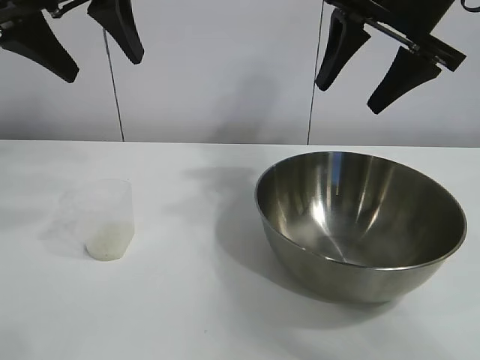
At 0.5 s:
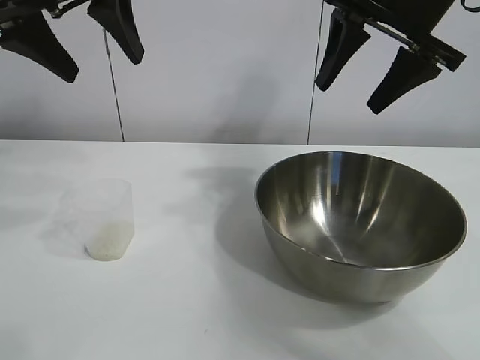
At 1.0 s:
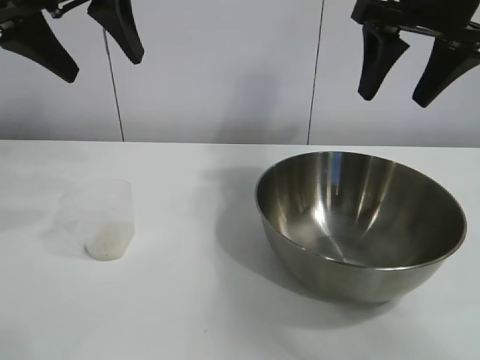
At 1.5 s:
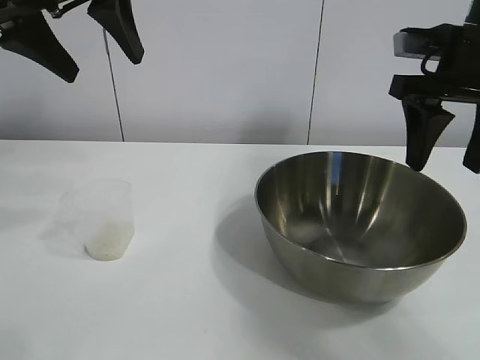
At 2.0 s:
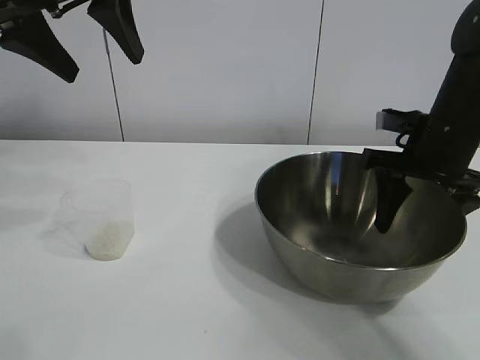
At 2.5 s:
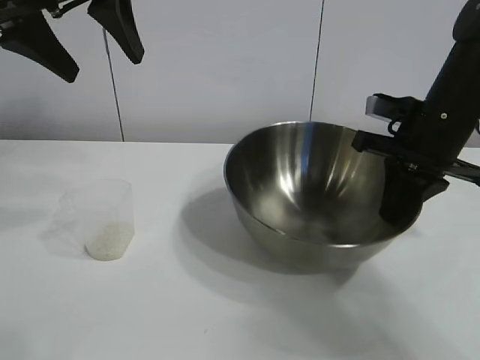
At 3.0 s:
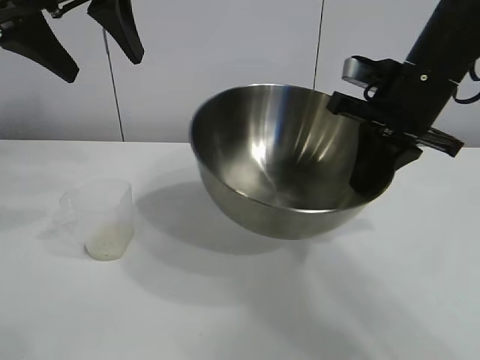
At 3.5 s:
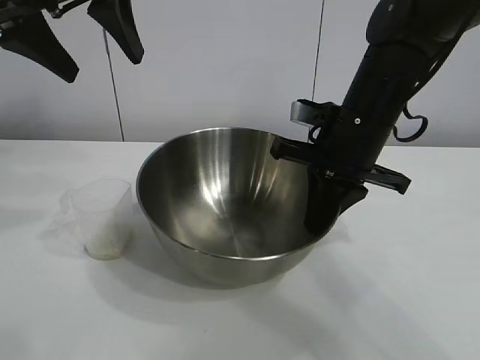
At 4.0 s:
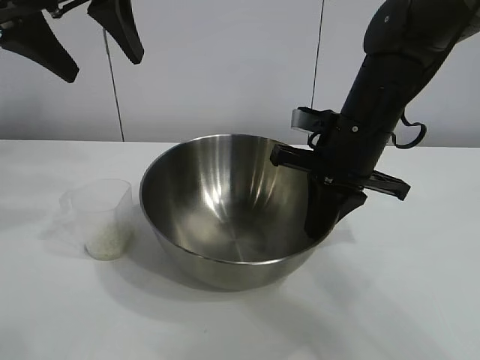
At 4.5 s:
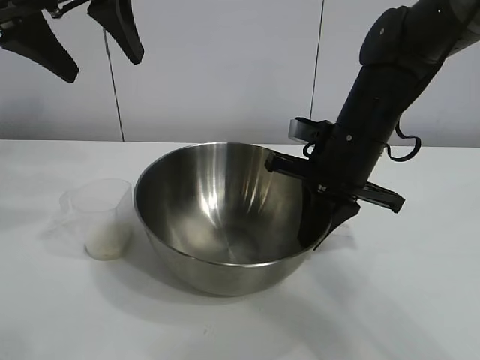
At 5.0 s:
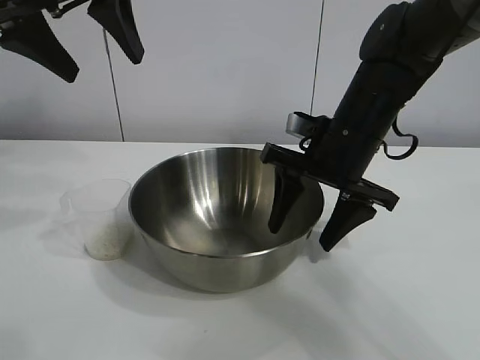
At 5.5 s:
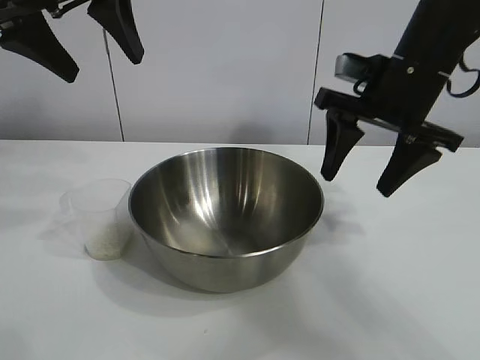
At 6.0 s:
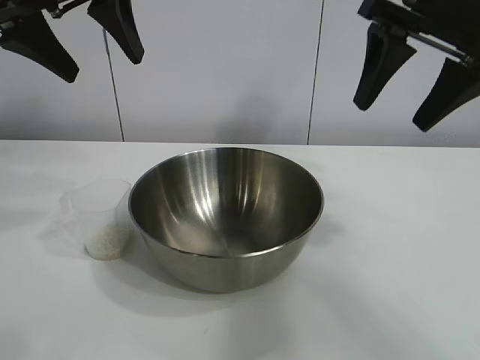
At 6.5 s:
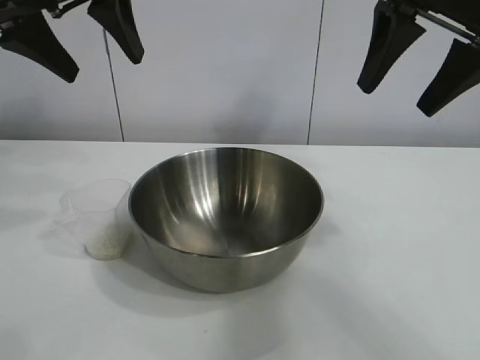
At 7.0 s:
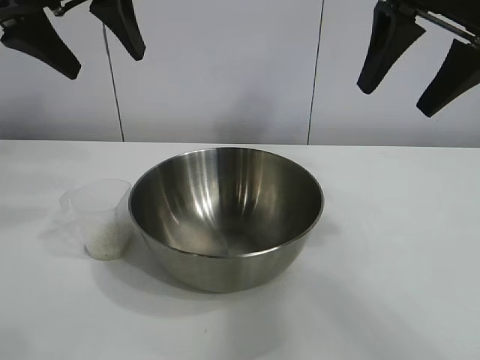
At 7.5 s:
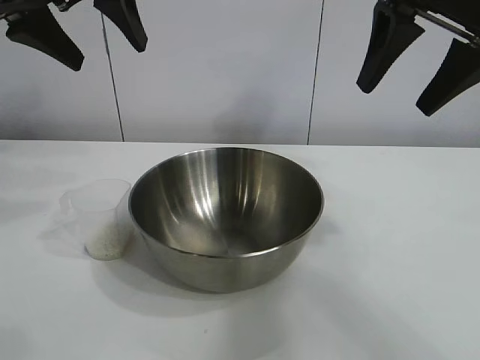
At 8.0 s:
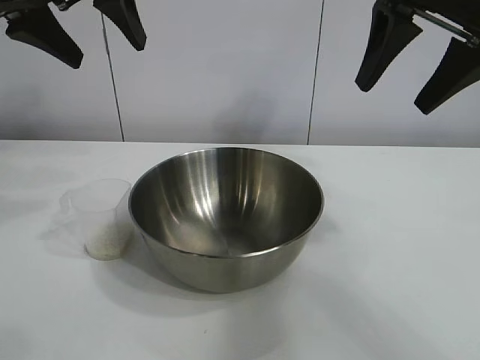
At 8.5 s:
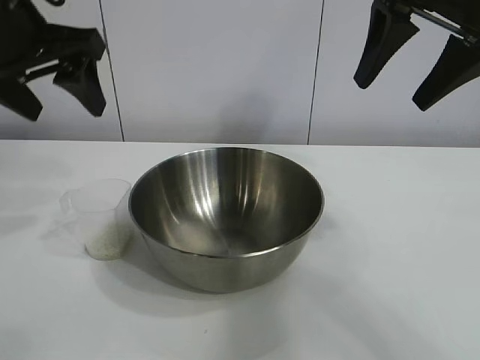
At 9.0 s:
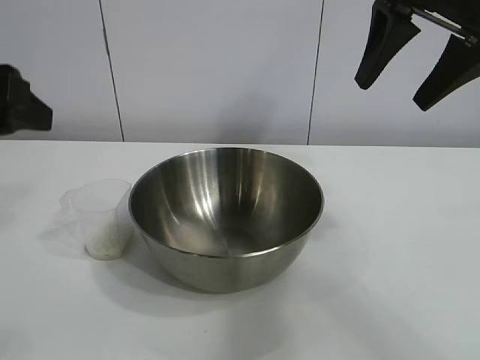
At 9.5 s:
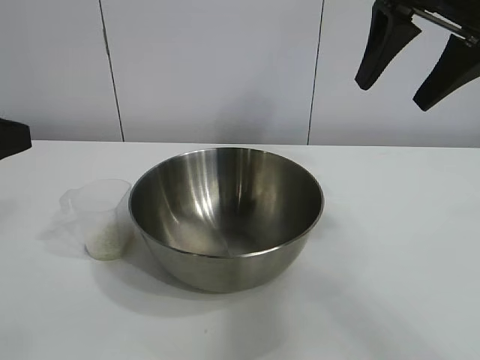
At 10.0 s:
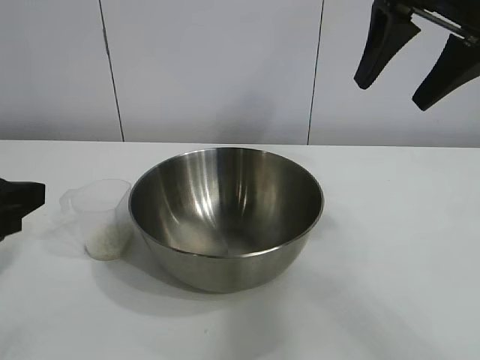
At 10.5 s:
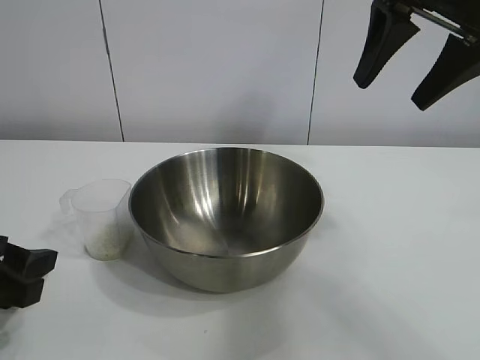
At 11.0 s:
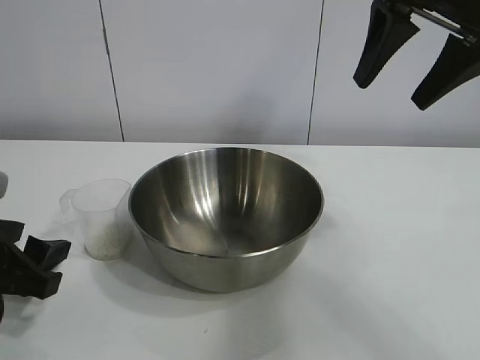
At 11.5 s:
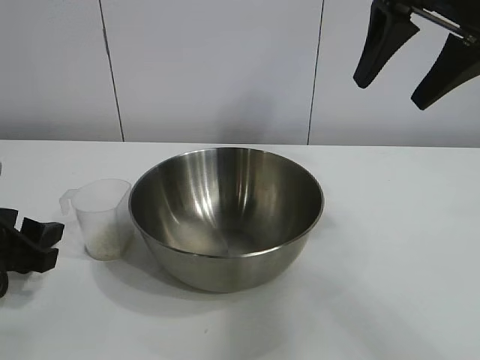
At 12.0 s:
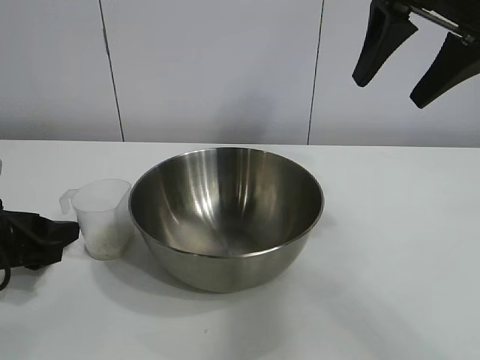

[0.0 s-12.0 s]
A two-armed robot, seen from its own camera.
Task of the whole recording: the right gripper grasp the rice container and place it in the center of the table, the left gripper grasp the rice scoop and pour the rice into the rice container.
Step, 1.0 to 4.5 s: Move the bowl in the center of view with right gripper.

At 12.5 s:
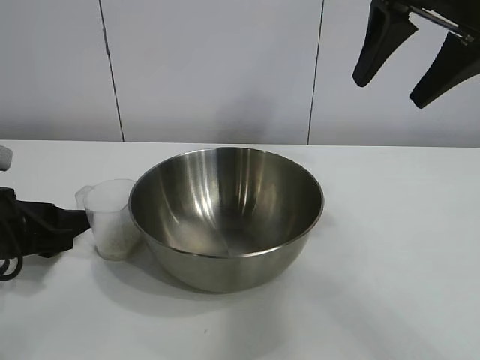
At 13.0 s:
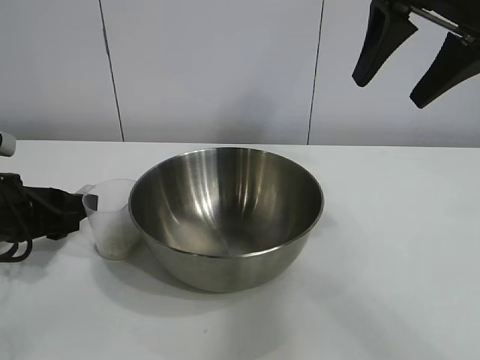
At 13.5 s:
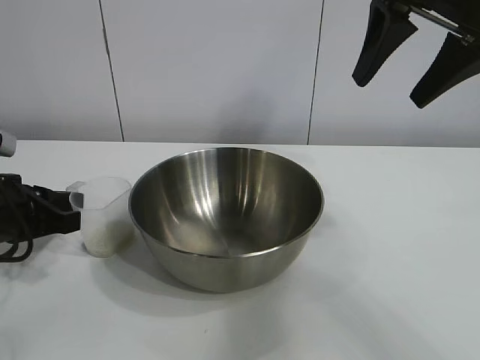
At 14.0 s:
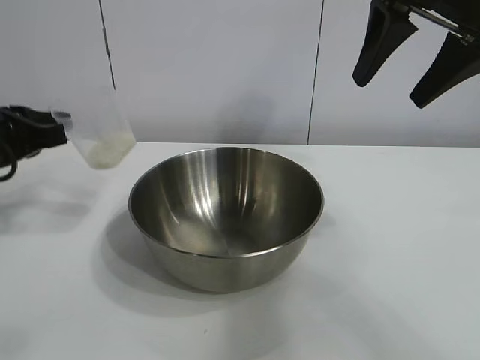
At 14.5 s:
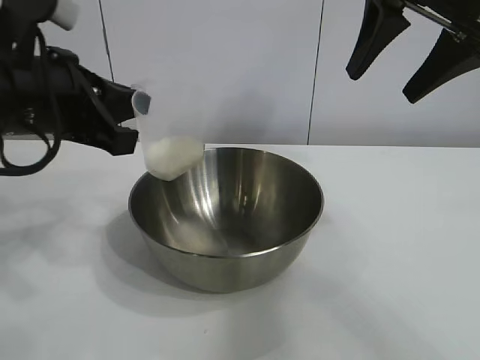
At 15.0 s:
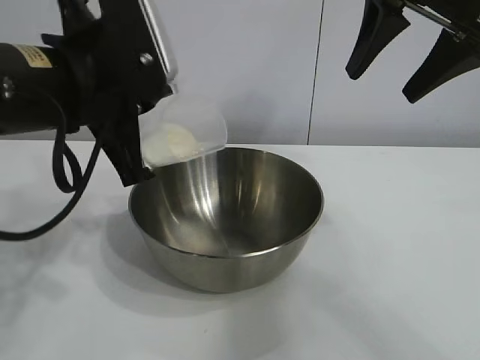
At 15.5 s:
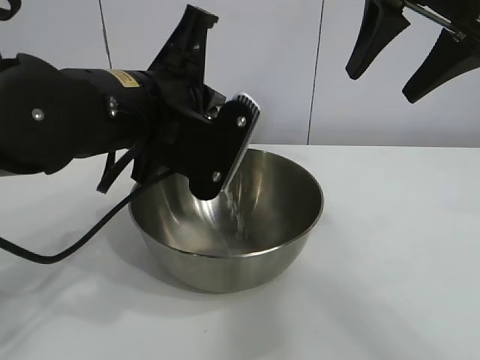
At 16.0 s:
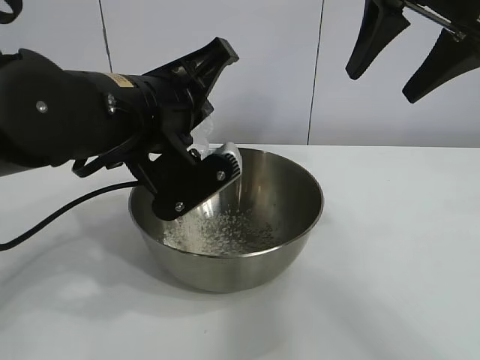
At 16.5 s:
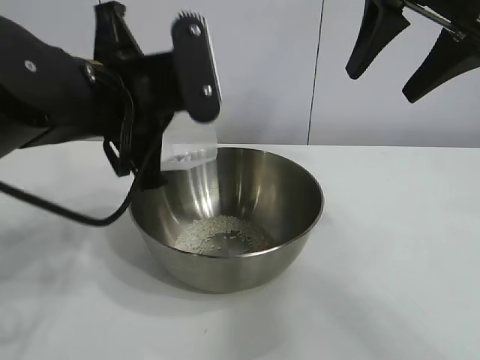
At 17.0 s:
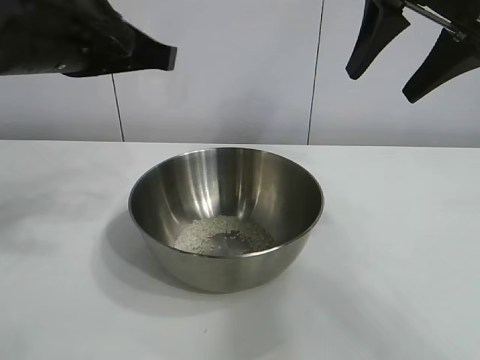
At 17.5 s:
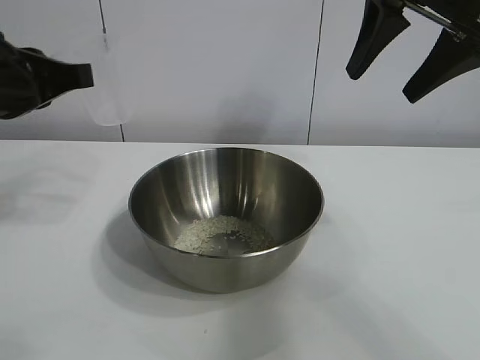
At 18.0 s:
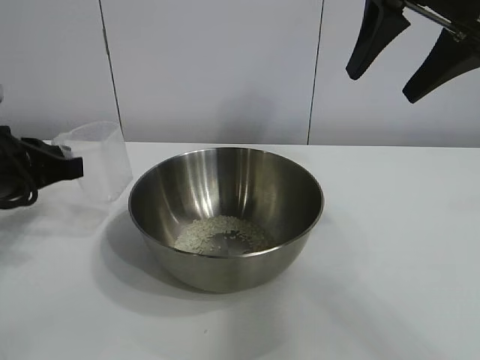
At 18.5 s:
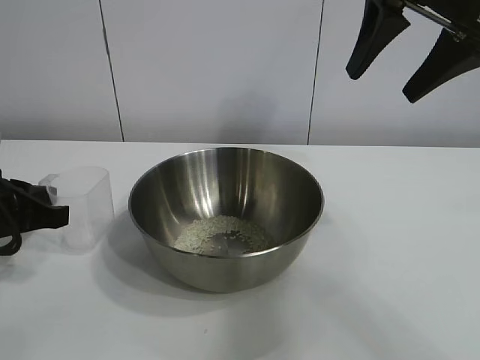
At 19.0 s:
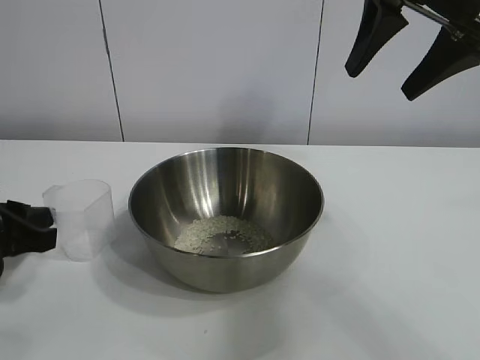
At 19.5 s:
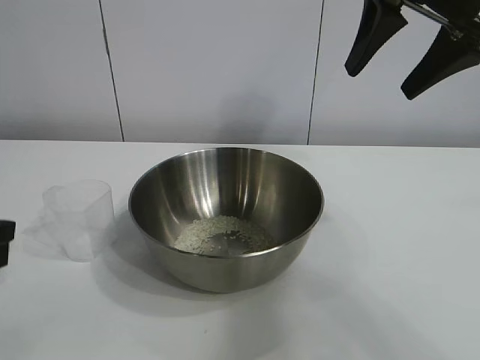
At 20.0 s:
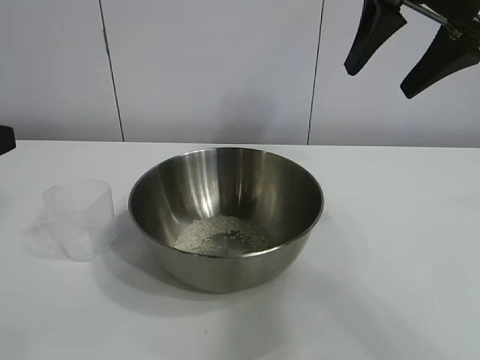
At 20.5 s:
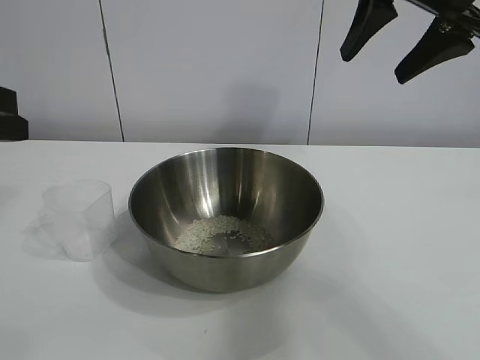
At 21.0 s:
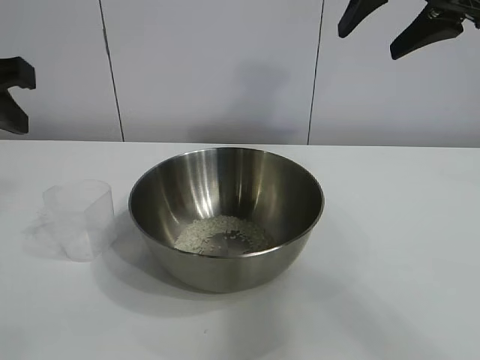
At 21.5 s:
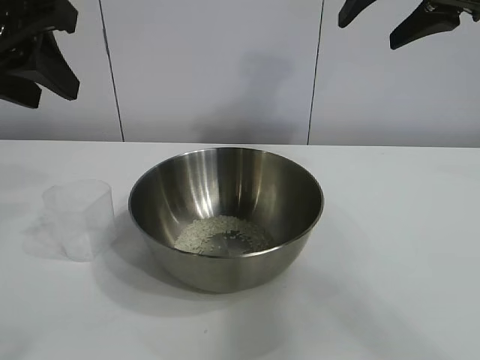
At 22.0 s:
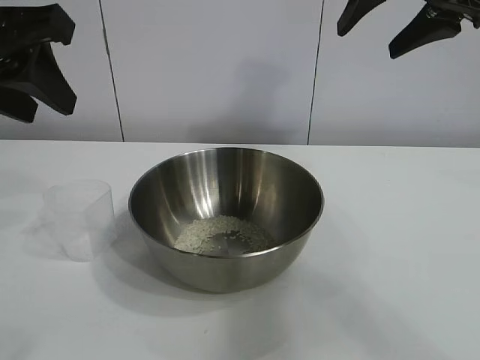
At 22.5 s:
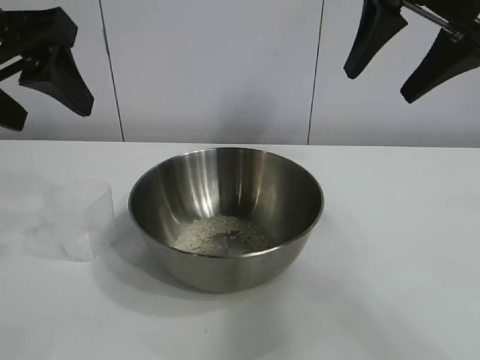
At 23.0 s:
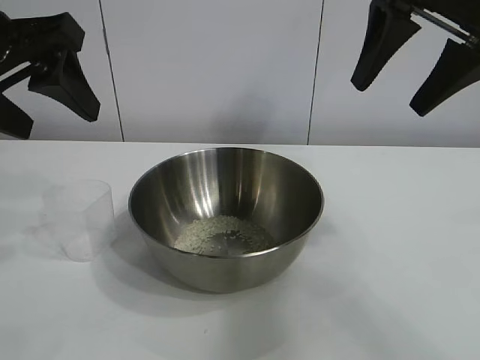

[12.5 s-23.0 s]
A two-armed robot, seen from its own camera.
Task of the whole recording: the right gripper grasp the rice container and place it in the center of the table, the left gripper grasp the rice scoop and pour the rice into the rice container.
Step, 14.0 to 16.0 s: Pour the rice from the cup into the bowl with the left gripper.
Step, 16.5 to 18.5 s: Place the cup on the table with the left gripper.
